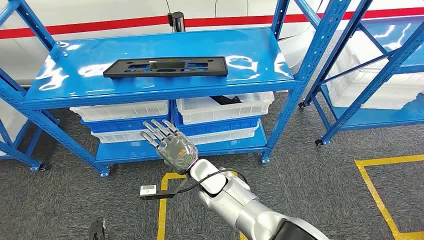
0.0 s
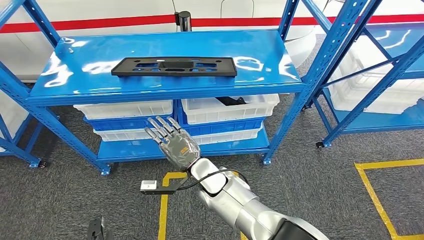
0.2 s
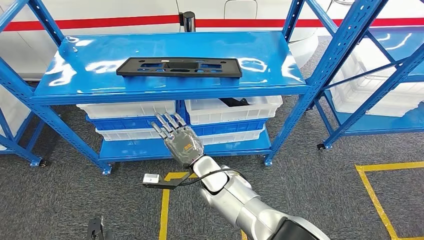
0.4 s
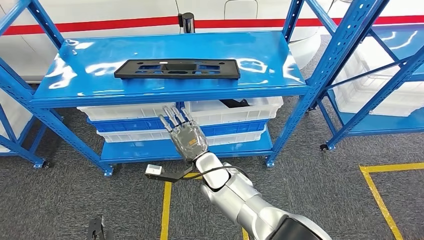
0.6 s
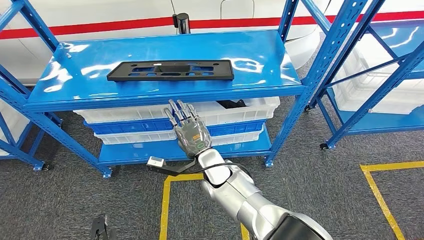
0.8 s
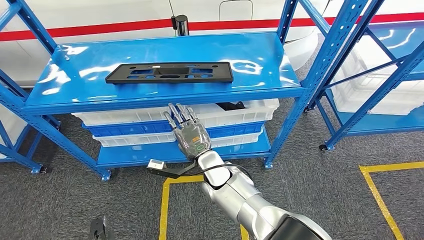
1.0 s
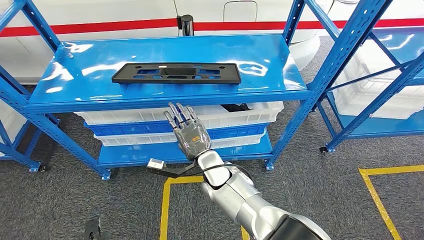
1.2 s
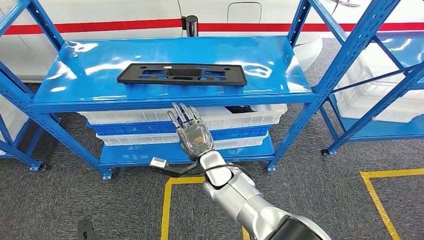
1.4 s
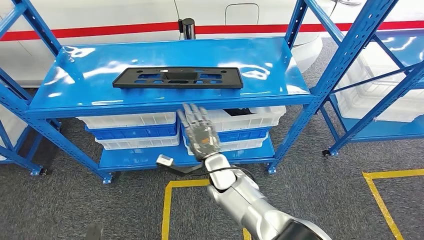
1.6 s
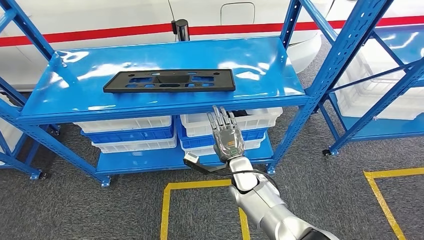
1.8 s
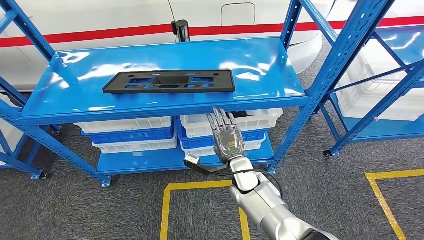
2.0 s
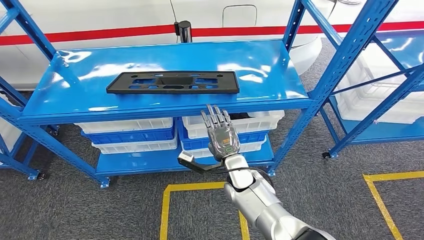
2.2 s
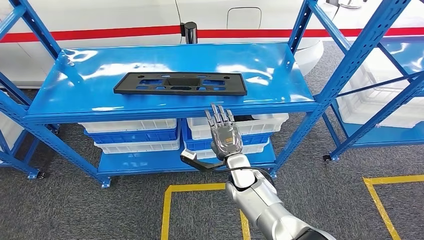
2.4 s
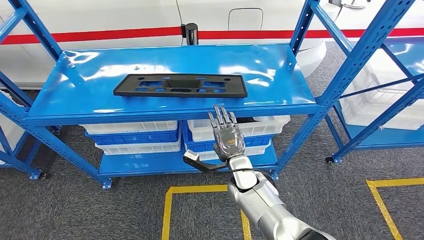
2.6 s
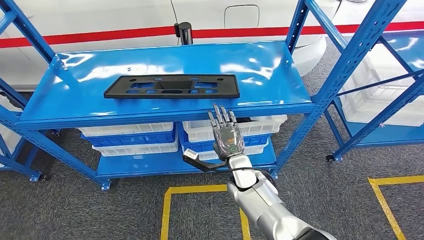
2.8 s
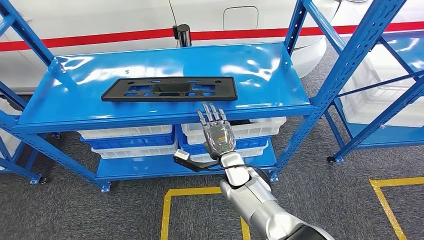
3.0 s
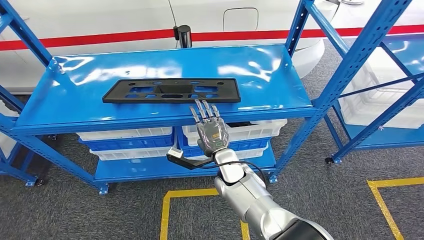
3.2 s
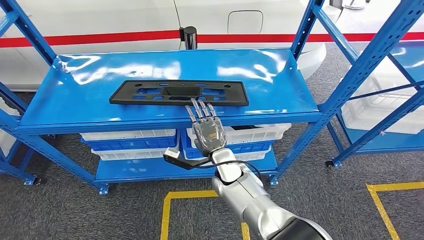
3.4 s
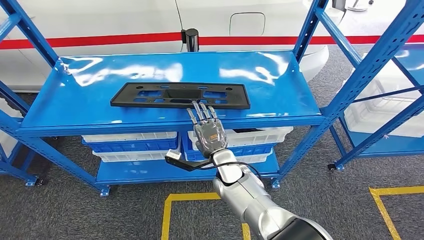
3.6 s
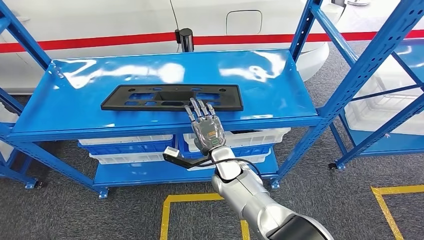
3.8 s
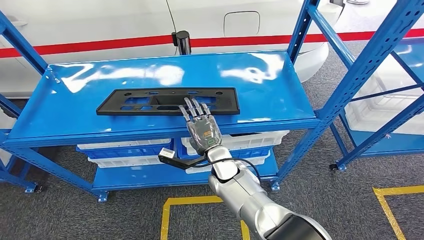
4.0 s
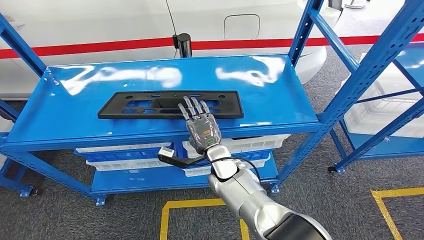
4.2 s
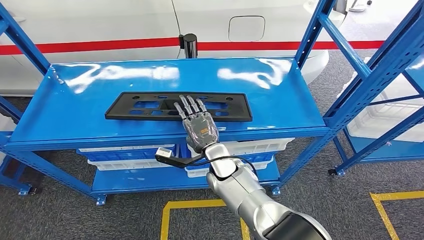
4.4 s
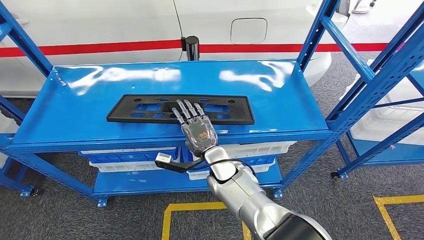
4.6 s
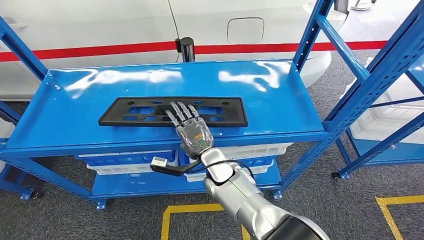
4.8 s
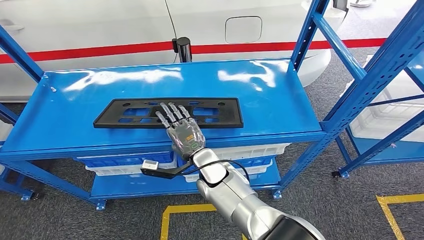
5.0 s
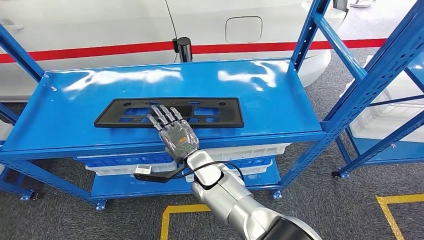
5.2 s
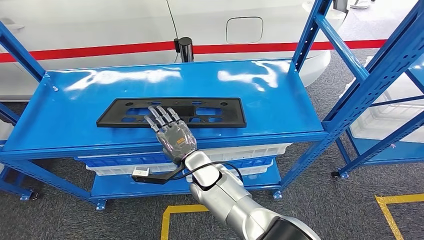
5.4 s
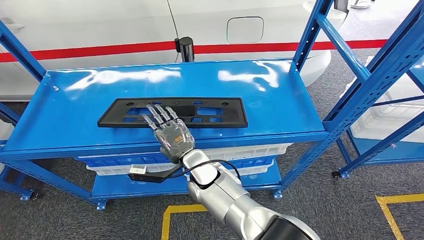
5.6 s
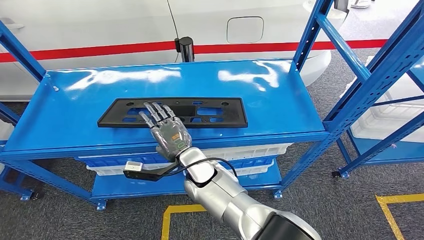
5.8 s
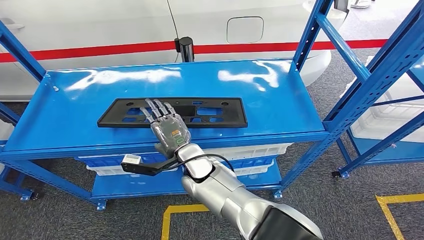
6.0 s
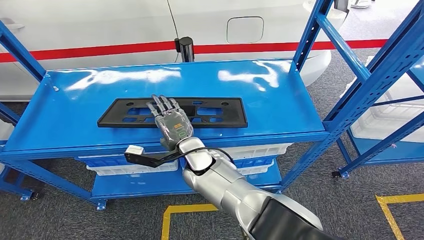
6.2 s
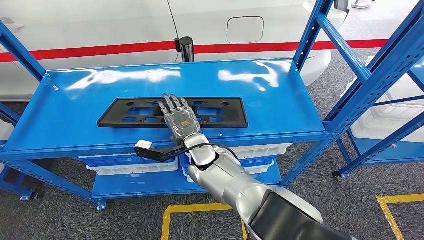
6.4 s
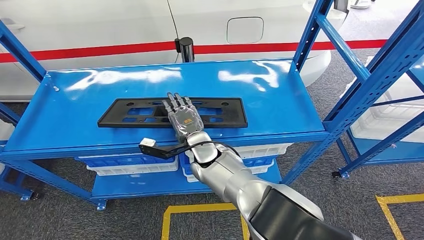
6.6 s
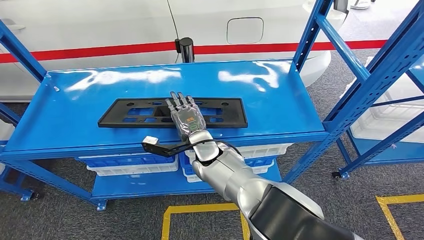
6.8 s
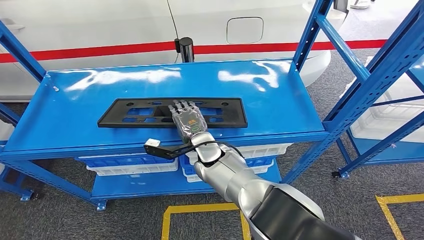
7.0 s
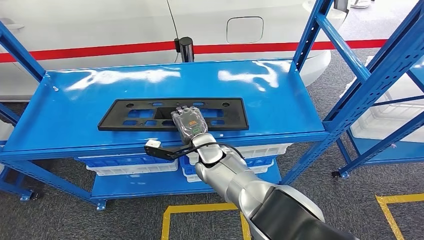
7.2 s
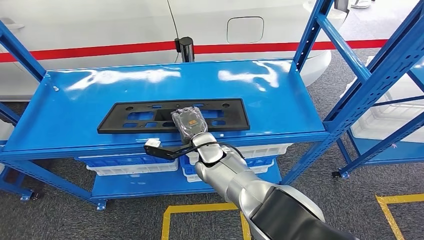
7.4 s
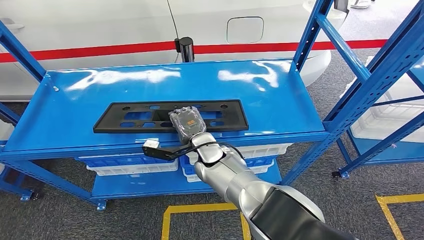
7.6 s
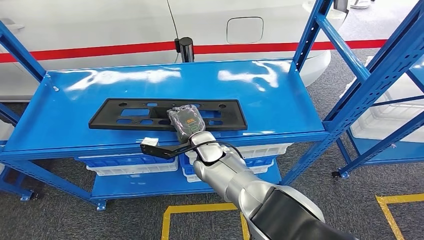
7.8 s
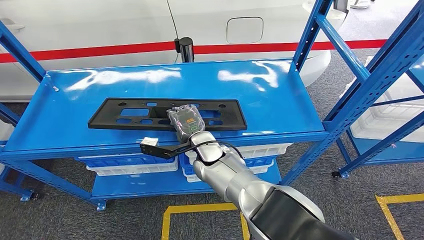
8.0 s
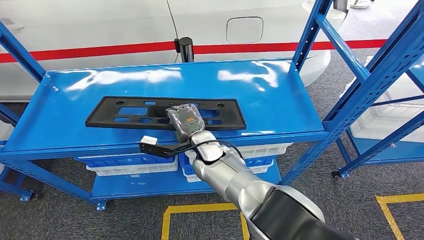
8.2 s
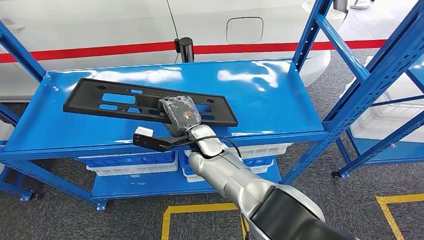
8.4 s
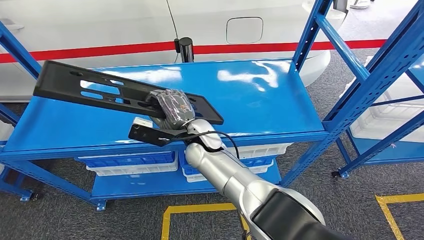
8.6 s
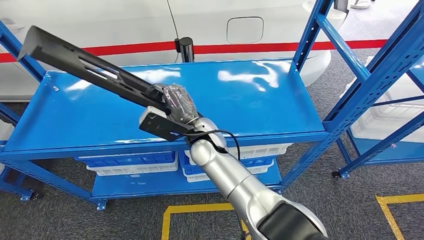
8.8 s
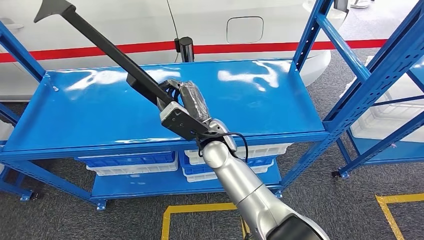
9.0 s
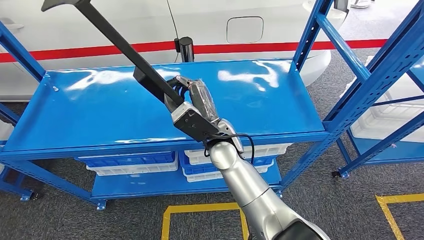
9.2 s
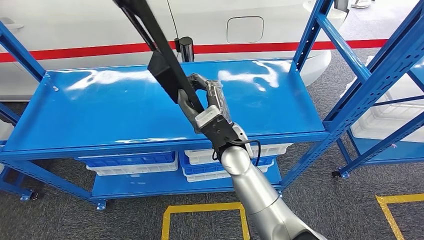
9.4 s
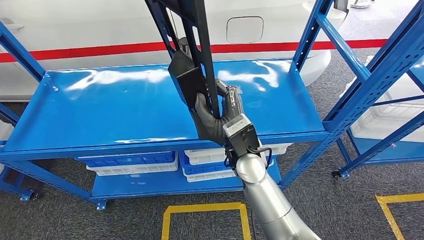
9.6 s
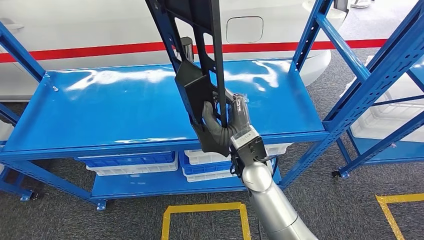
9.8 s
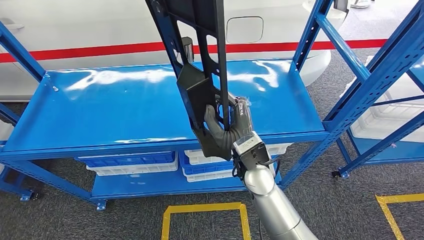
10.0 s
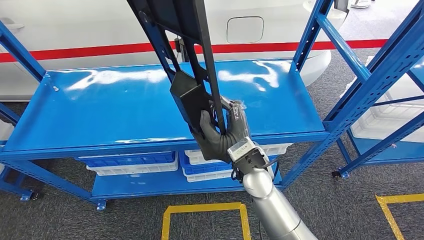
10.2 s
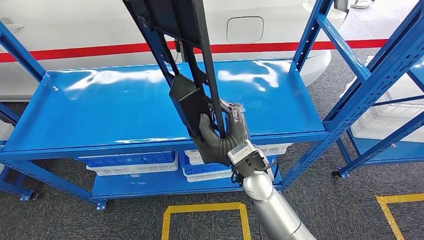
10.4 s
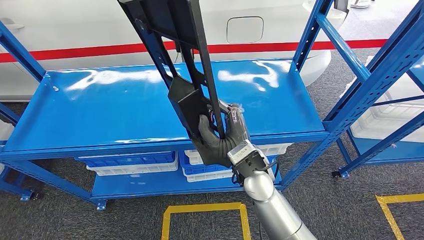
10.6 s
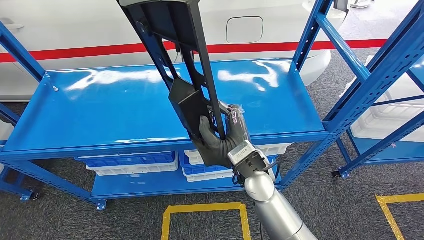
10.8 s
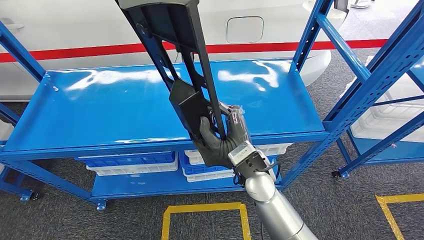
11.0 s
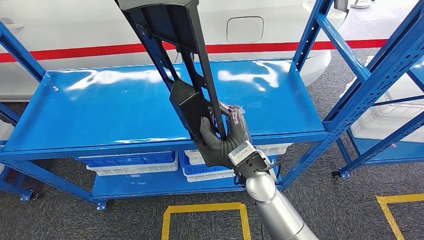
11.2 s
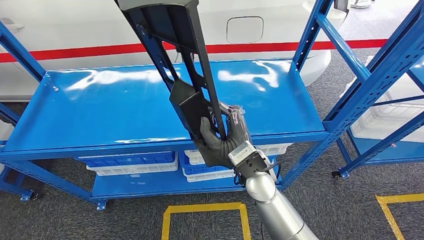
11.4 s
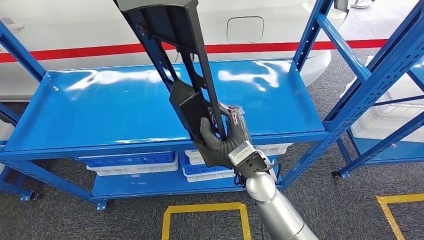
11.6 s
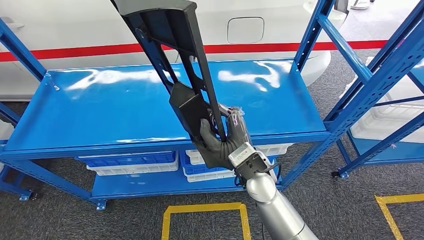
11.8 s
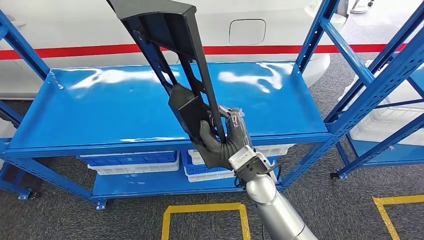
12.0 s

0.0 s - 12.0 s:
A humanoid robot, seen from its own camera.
6.0 s - 7.6 s: The right hand moves roughly 5 cm.
7.6 s - 9.0 s: The right hand moves upward, roughly 10 cm.
9.0 s - 10.4 s: The right hand travels to the right and backward by about 10 cm.

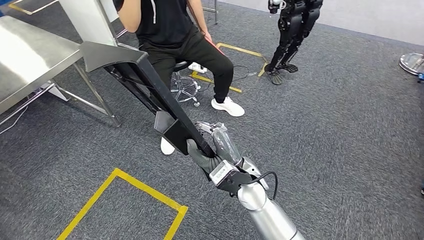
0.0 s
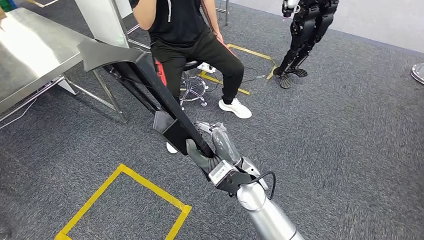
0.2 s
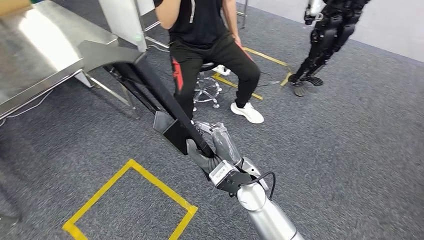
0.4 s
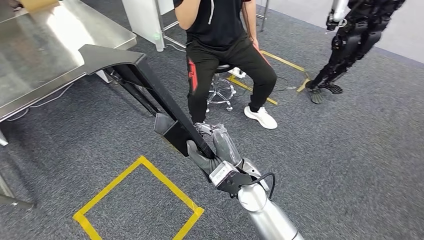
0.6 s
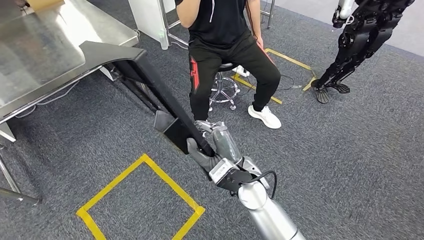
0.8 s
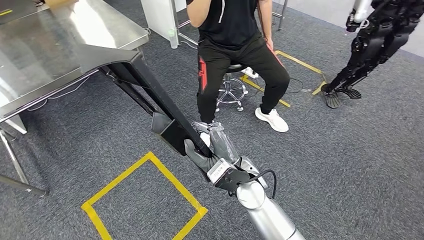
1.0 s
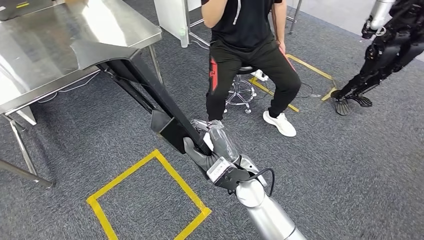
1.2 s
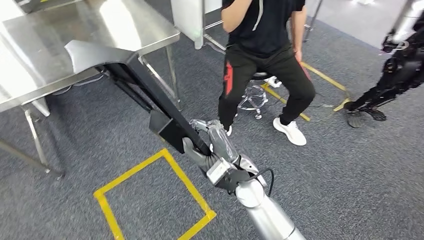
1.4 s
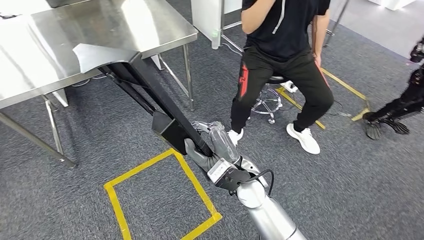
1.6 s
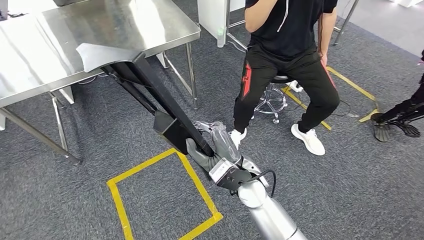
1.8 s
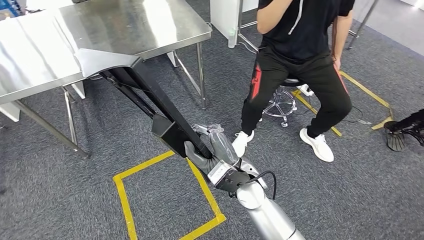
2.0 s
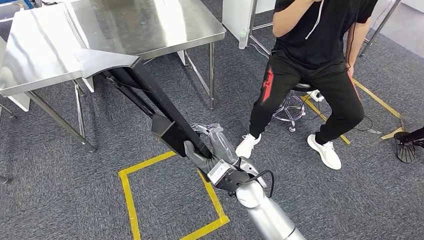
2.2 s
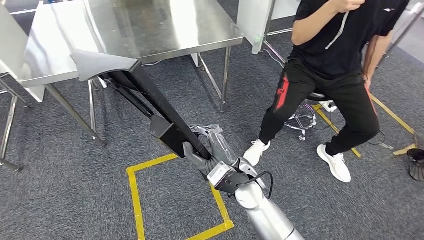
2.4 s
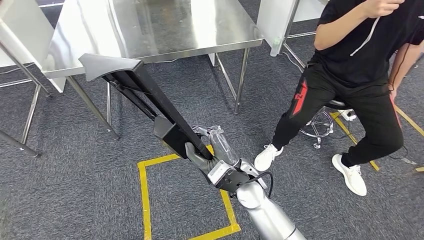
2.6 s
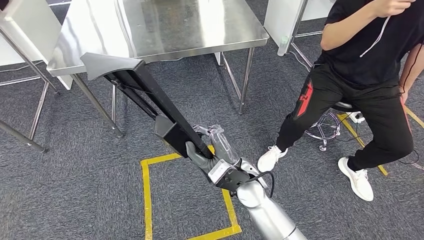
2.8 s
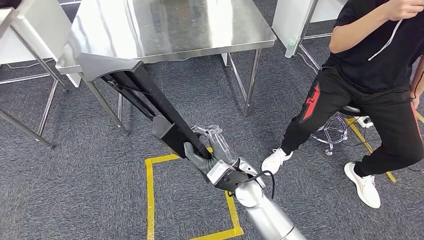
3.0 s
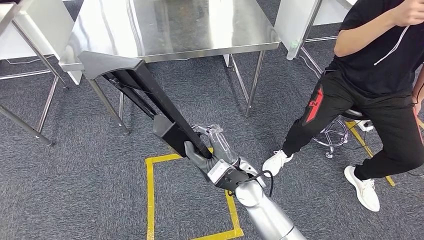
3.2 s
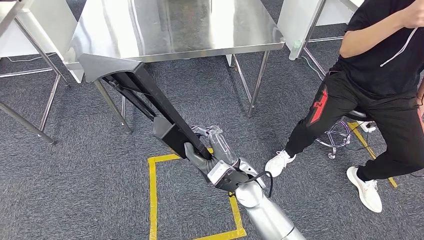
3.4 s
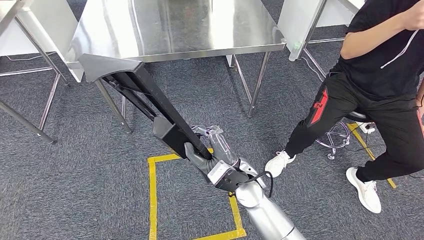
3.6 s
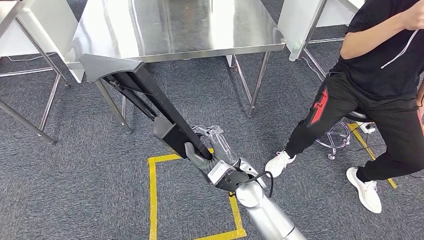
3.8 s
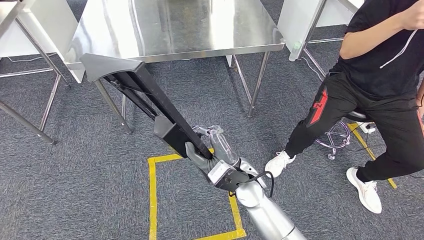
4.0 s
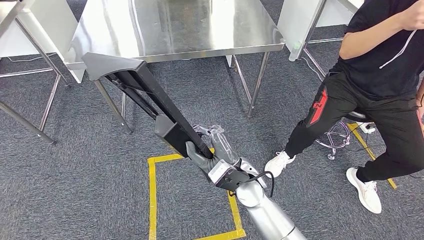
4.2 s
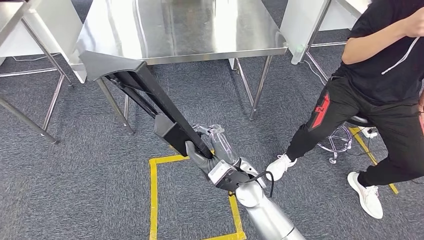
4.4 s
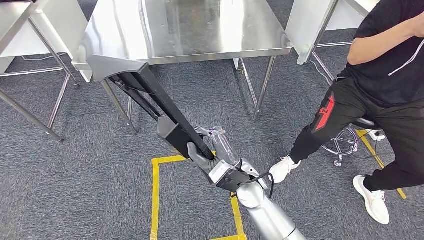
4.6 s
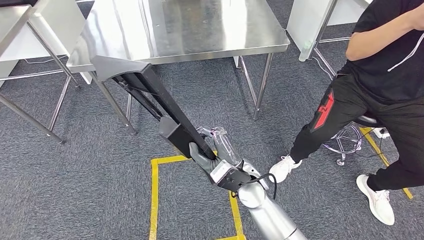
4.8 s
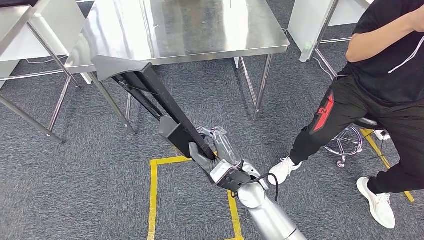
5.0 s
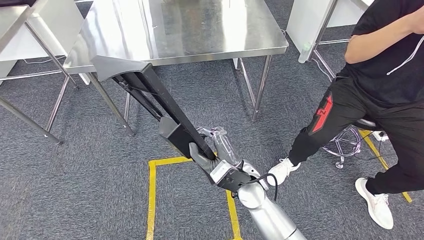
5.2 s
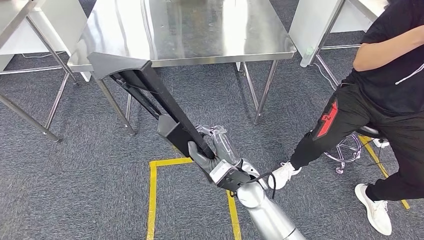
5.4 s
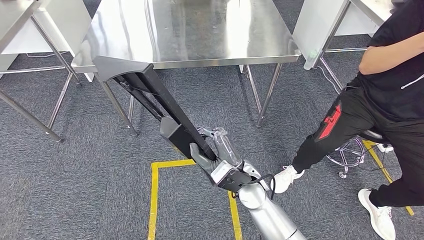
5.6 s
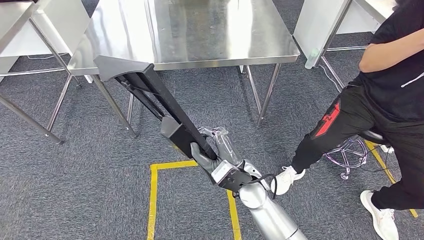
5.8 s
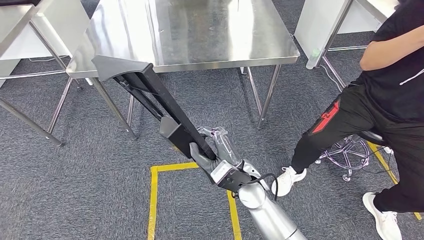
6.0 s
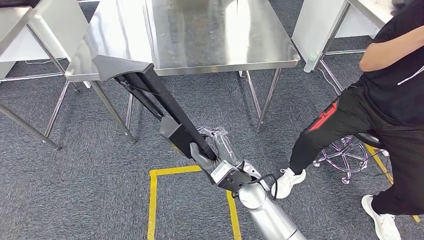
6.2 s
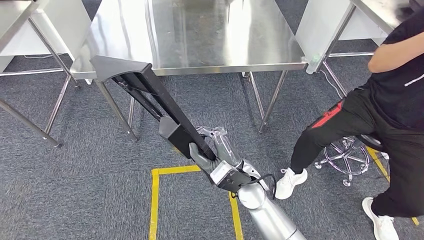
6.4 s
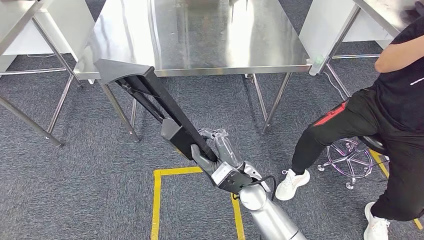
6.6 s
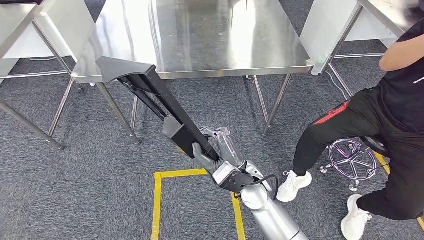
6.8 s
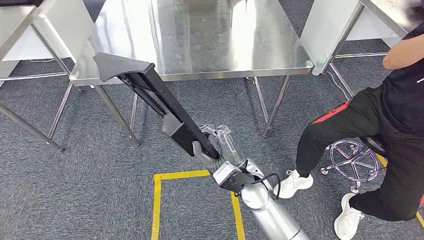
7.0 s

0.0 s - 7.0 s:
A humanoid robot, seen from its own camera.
Step, 0.0 s - 6.8 s: Move the large material to the workbench.
